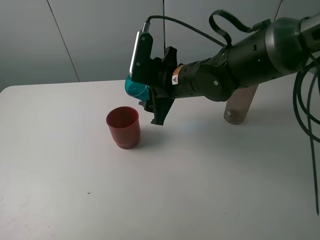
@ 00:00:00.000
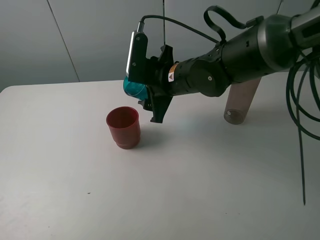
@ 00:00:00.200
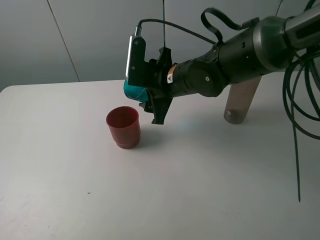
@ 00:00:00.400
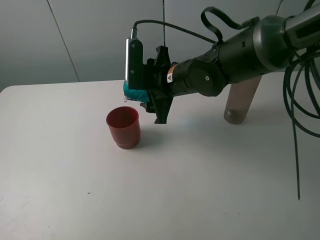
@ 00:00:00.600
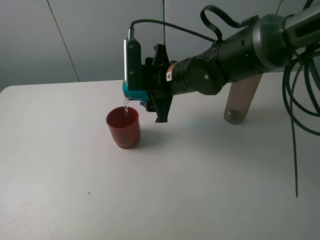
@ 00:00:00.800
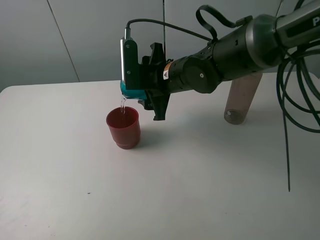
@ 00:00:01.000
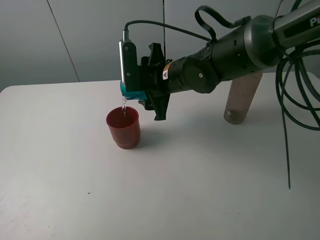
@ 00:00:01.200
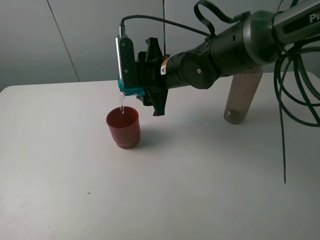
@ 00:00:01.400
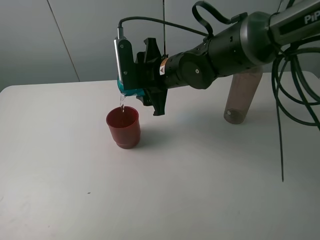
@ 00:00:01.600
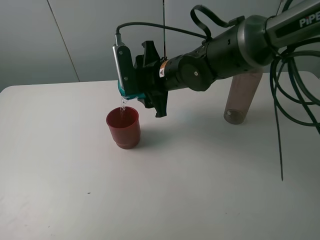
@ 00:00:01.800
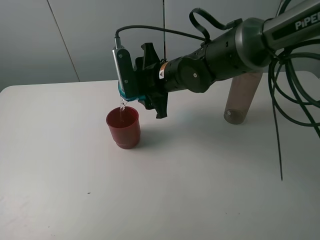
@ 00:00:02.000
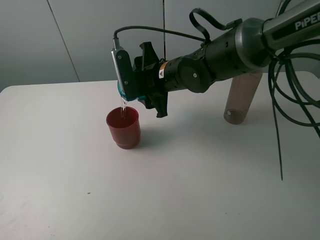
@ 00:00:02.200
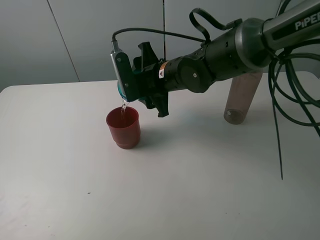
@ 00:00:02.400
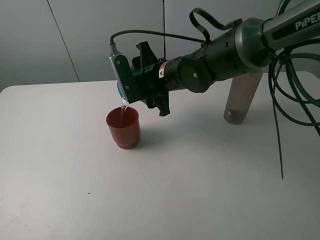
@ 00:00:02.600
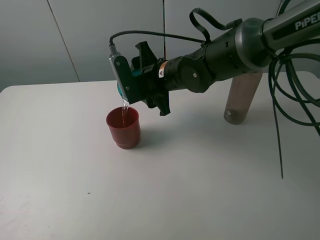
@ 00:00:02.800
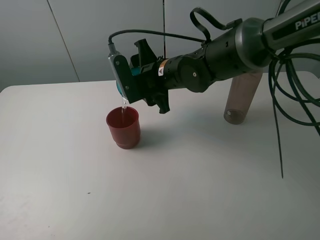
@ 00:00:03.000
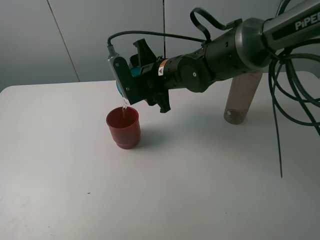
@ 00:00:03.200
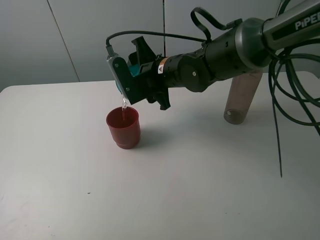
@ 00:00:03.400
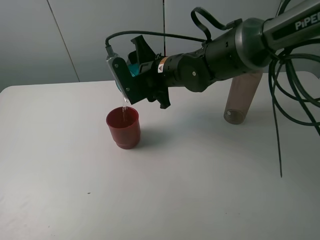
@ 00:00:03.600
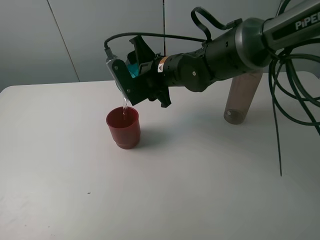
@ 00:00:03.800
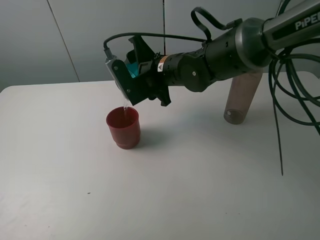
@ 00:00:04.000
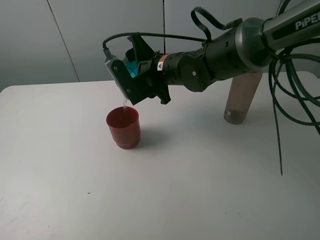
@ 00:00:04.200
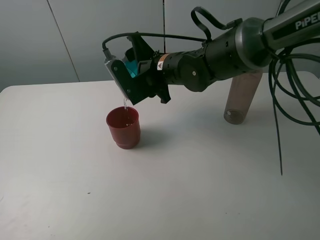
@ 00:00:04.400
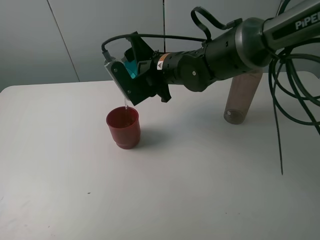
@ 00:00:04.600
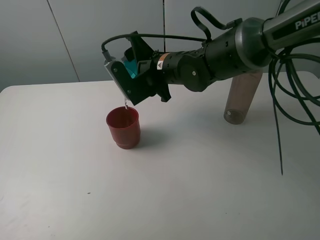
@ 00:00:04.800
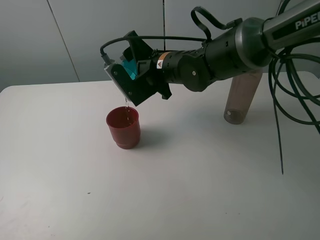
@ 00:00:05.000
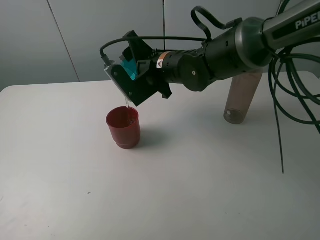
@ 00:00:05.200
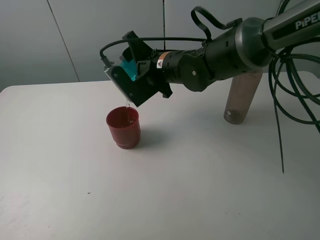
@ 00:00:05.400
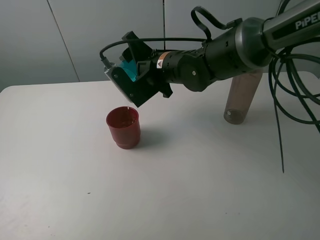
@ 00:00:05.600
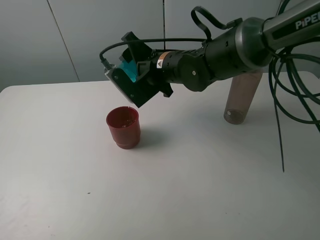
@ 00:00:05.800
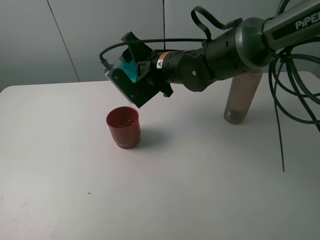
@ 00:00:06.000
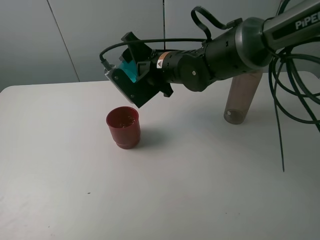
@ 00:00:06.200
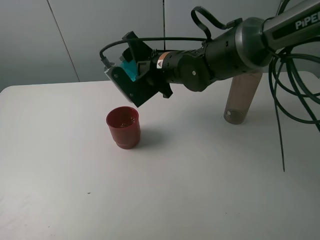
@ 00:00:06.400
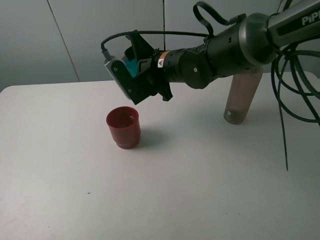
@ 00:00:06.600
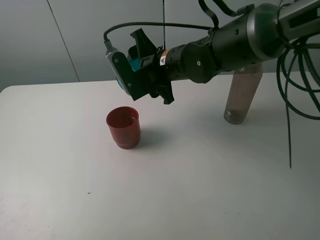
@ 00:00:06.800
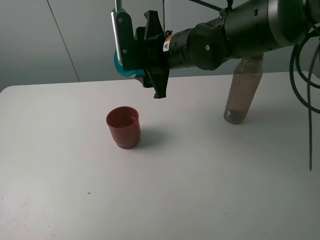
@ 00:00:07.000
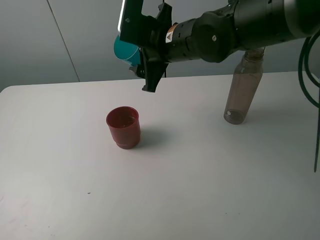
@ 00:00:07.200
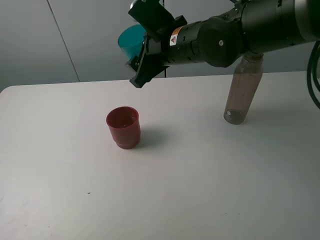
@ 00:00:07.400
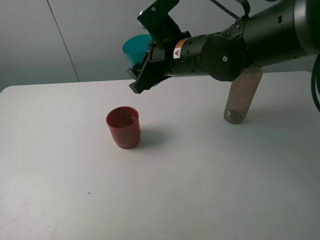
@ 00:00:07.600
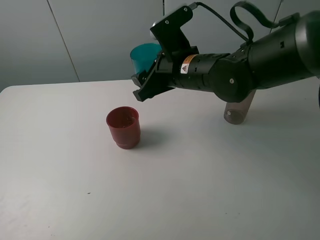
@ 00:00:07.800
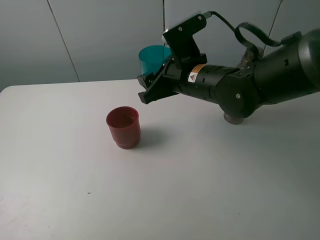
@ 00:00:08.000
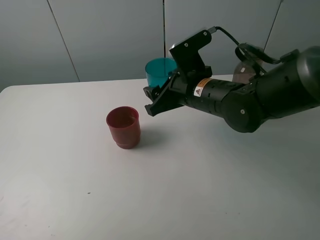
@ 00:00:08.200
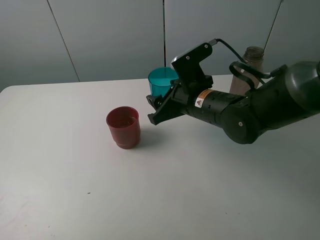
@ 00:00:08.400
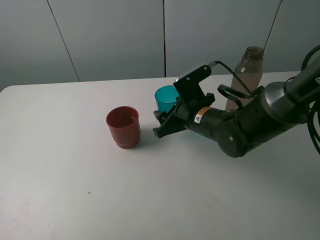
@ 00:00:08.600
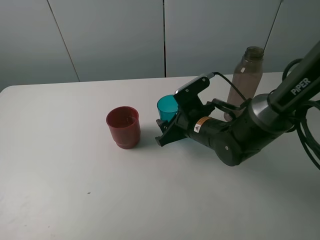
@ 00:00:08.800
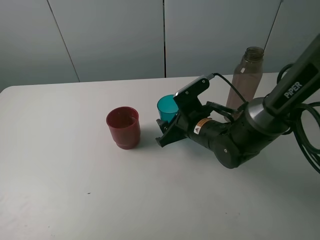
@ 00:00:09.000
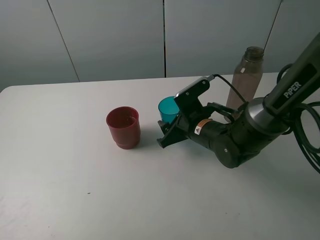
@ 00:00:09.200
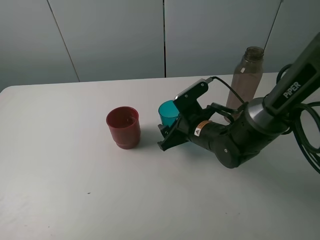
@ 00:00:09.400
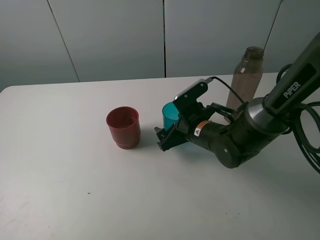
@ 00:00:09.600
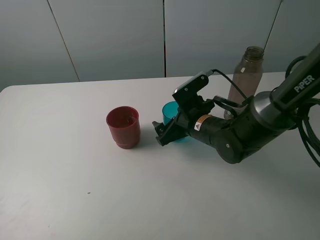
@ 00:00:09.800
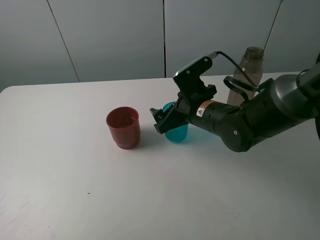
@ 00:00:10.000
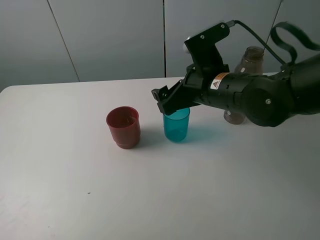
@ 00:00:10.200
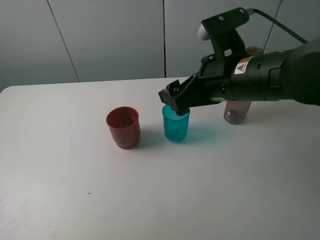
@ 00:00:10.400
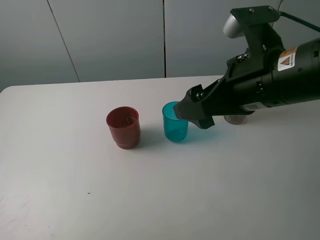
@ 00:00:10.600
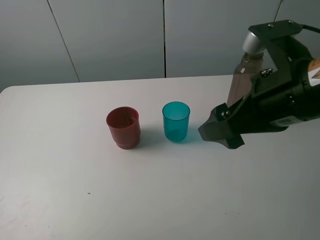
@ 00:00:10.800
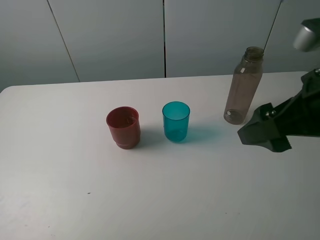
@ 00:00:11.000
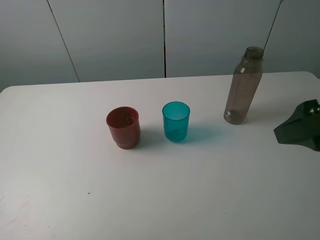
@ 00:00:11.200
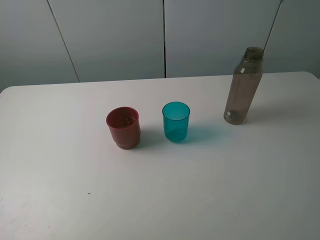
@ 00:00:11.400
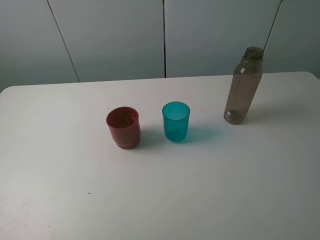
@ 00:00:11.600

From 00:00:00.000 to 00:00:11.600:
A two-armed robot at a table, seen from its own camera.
Task of the whole recording: pick up the bottle and pour water into the cup, then pick up the cup containing water and pour it into another cup.
Step, from 00:00:00.000 to 00:00:06.000: Pour water from blue cup to red cup with the right gripper.
Step, from 00:00:06.200 to 00:00:09.600: Place the blue cup with the right gripper.
From 00:00:00.000 to 00:00:01.400: There are only small adjustments of the grippers.
From 00:00:01.400 to 00:00:02.800: The grippers make only small movements.
From 00:00:02.800 to 00:00:04.400: The grippers make only small movements.
From 00:00:04.400 to 00:00:05.800: The grippers make only small movements.
From 00:00:05.800 to 00:00:07.200: The right gripper travels upward by some 5 cm.
From 00:00:07.200 to 00:00:08.800: The right gripper is displaced downward by about 15 cm.
From 00:00:08.800 to 00:00:10.200: The right gripper travels upward by about 15 cm, and opens up.
From 00:00:10.200 to 00:00:11.600: The right gripper travels backward, to the right and upward by some 30 cm.
